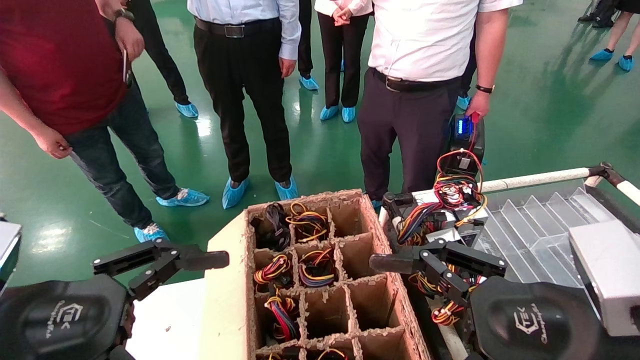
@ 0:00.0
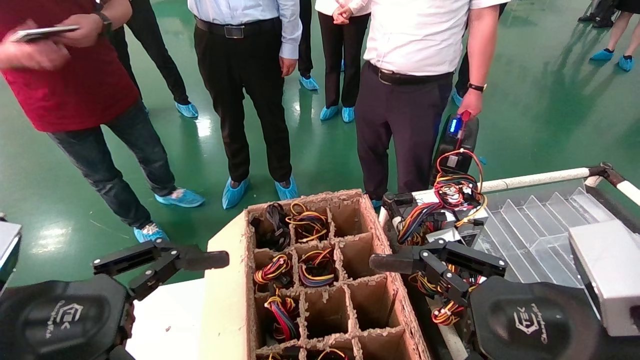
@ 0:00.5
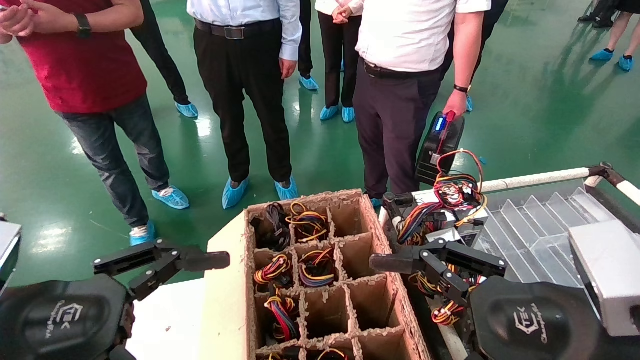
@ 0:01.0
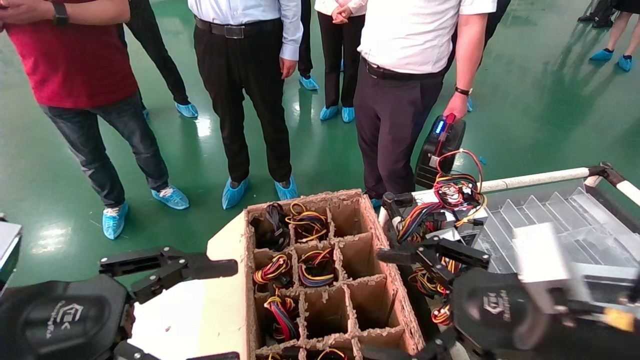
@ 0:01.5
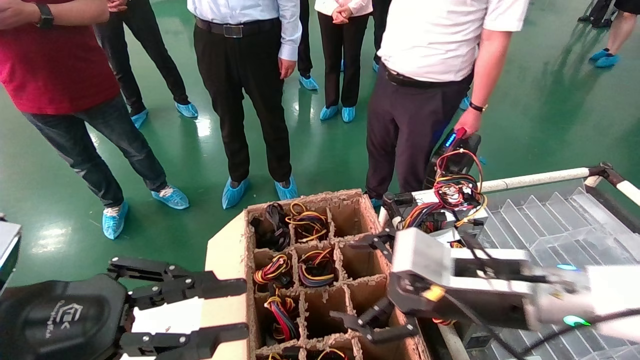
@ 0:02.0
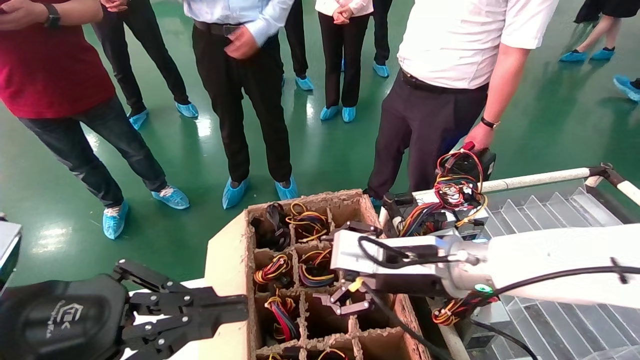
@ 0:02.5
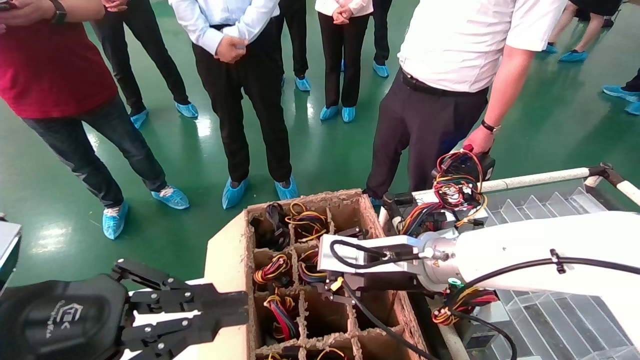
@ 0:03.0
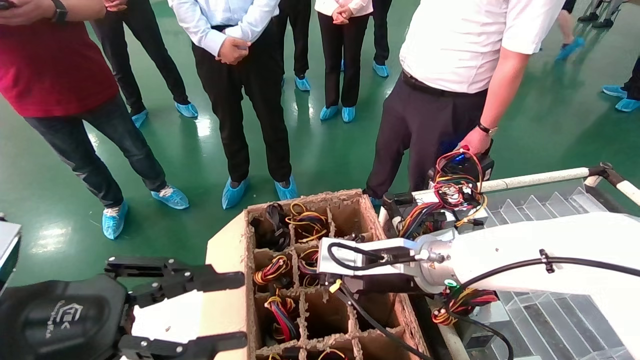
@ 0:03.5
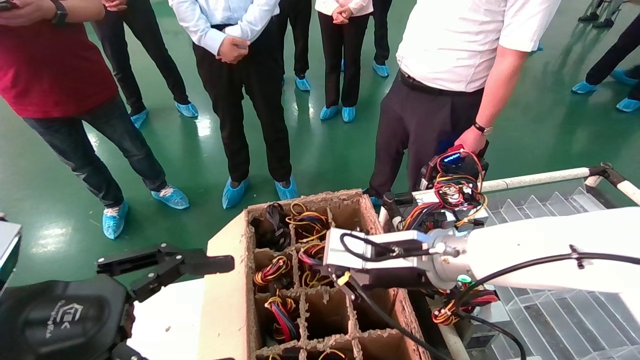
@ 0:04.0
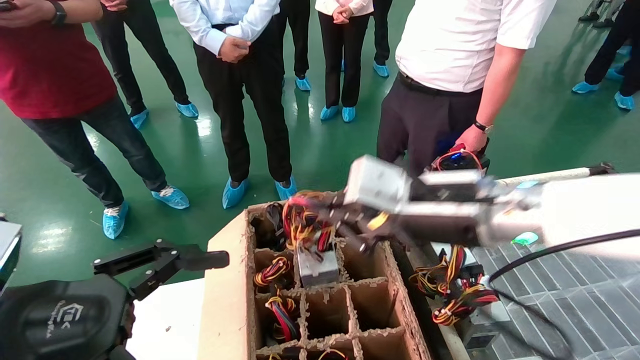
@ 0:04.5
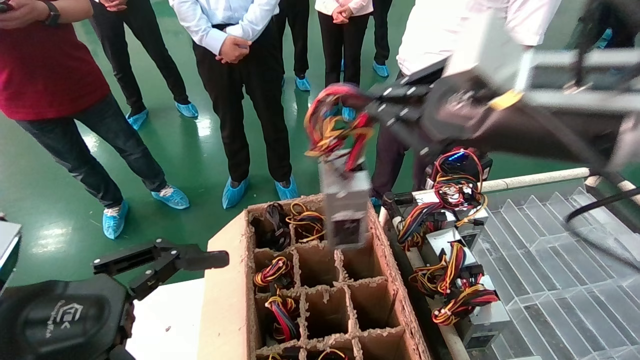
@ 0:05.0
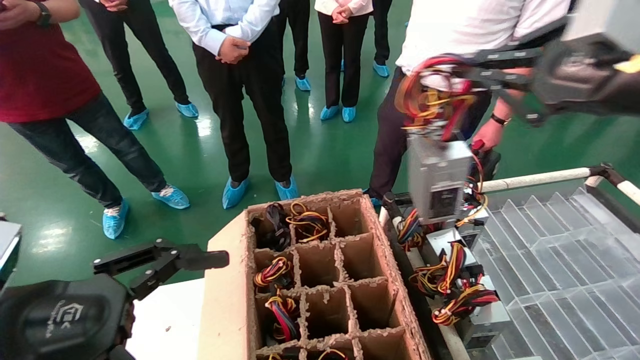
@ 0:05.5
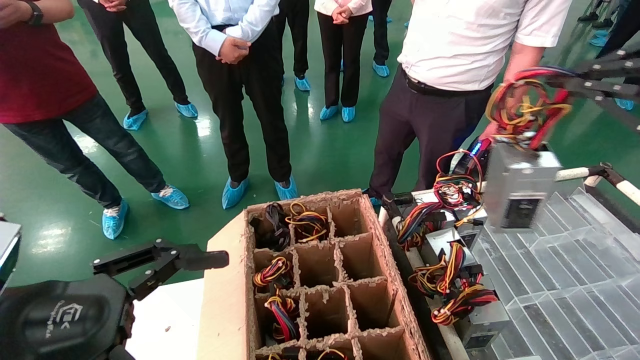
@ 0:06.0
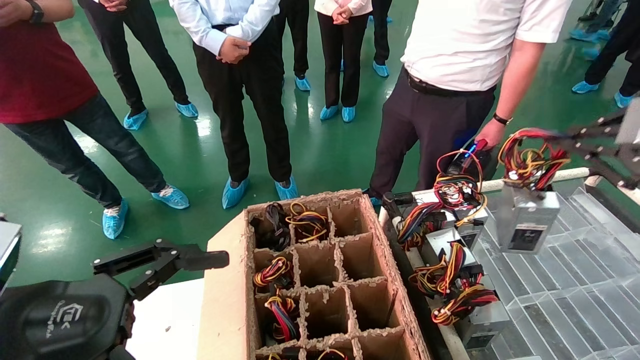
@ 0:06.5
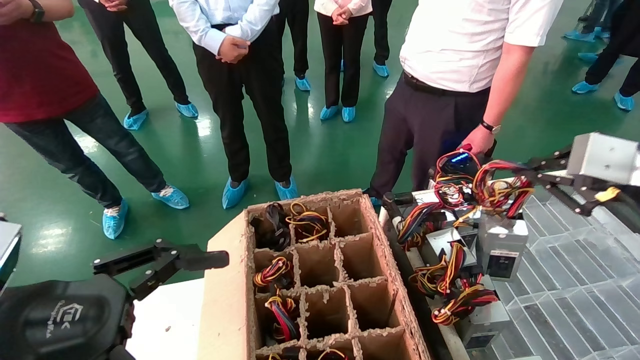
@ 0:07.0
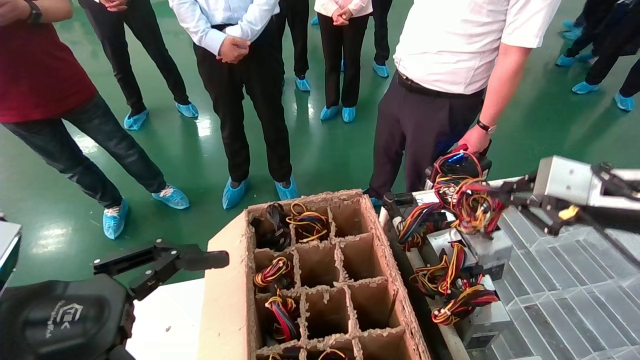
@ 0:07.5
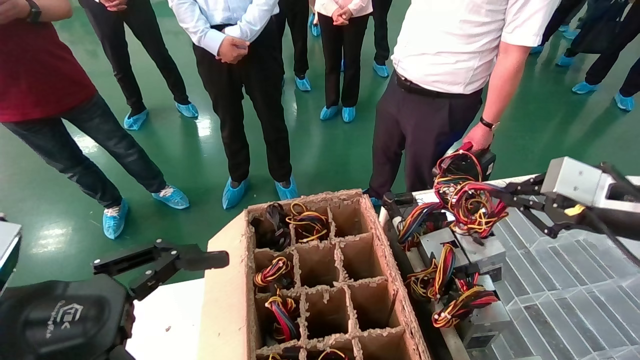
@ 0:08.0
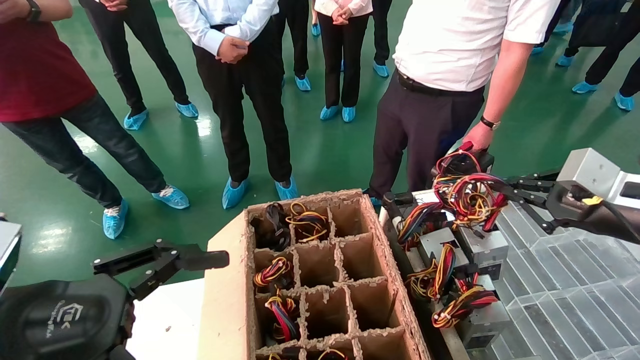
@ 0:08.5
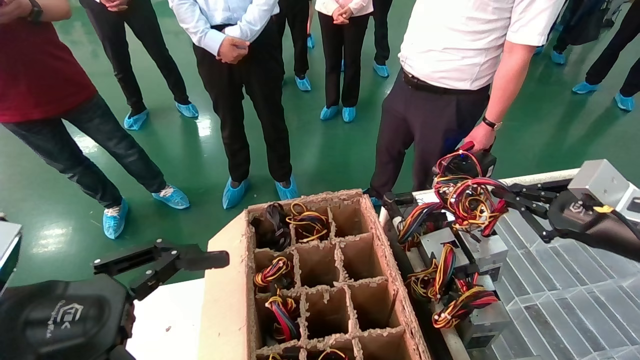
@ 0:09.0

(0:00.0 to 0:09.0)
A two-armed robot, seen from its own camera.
Step, 0:02.0 - 0:03.5: Grab and lift the power supply from the large box.
0:00.0 - 0:02.0: The left gripper closes, while the right gripper is displaced forward and to the left by approximately 10 cm.
0:02.0 - 0:04.5: The right gripper is displaced upward by about 10 cm, and closes up; the left gripper opens.
0:04.5 - 0:07.0: The right gripper is displaced to the right by approximately 25 cm.
0:07.0 - 0:09.0: The right gripper shifts approximately 10 cm downward.

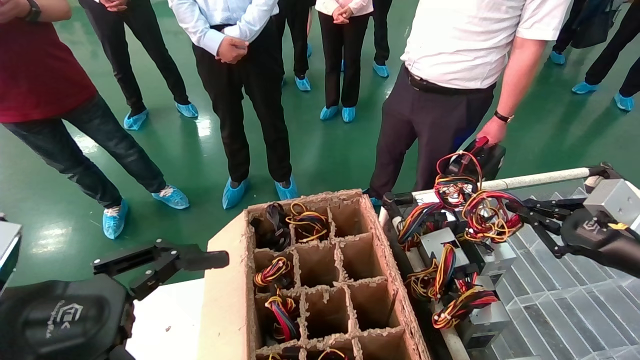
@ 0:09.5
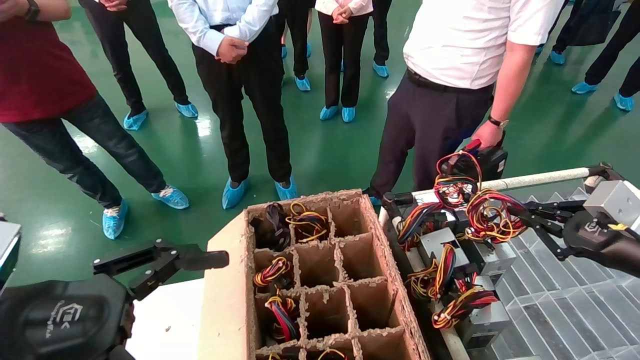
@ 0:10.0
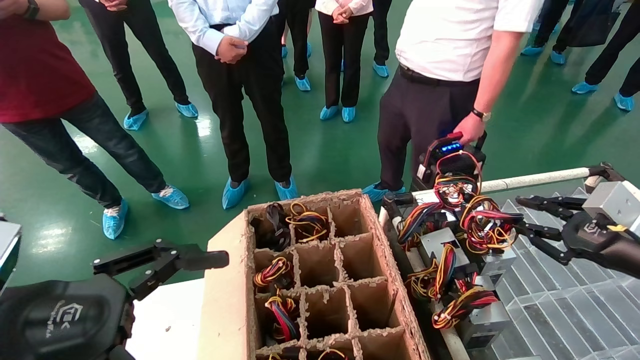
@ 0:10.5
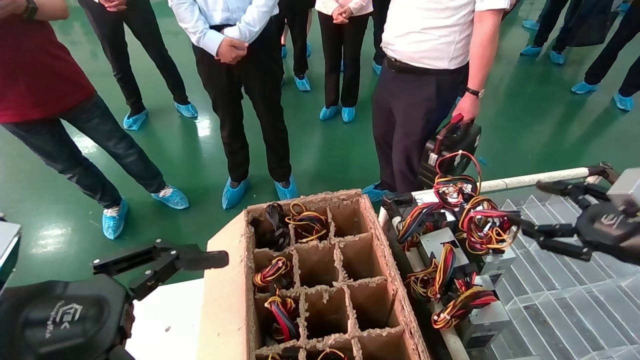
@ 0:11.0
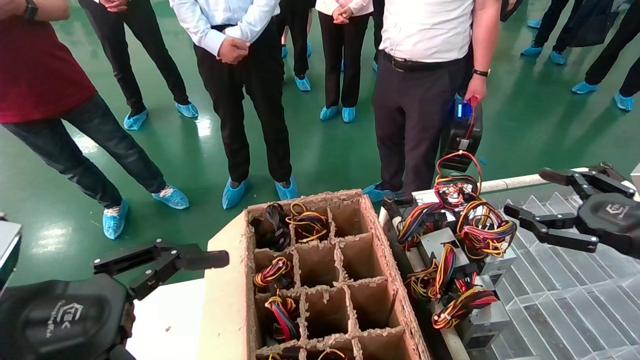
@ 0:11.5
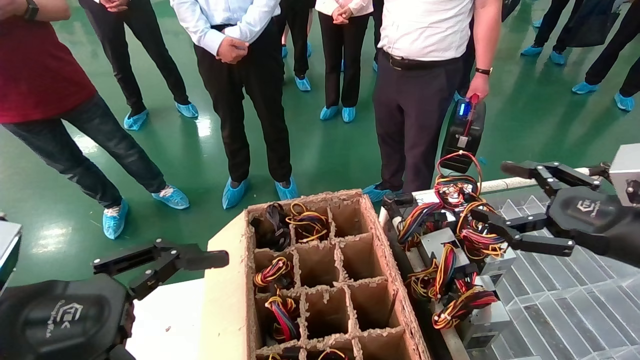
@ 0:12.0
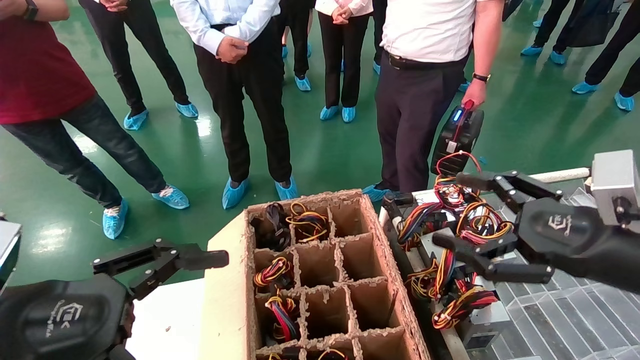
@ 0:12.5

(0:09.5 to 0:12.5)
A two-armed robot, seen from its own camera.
0:09.5 - 0:11.0: The right gripper opens its fingers.
0:11.0 - 0:12.5: The right gripper is displaced to the left and backward by about 15 cm, and opens its fingers.
